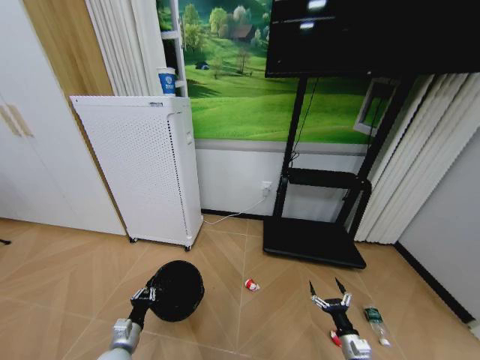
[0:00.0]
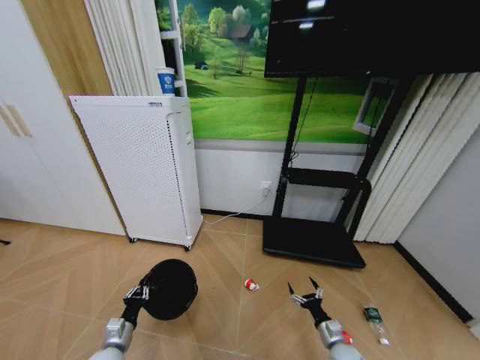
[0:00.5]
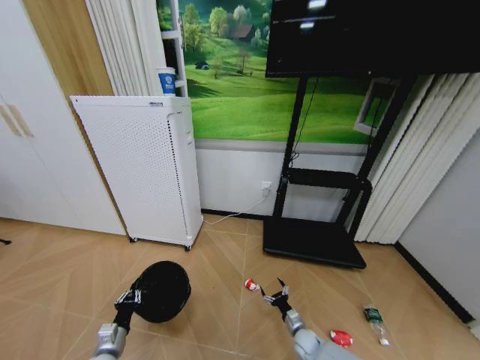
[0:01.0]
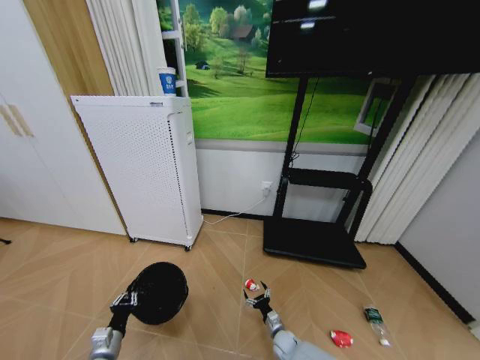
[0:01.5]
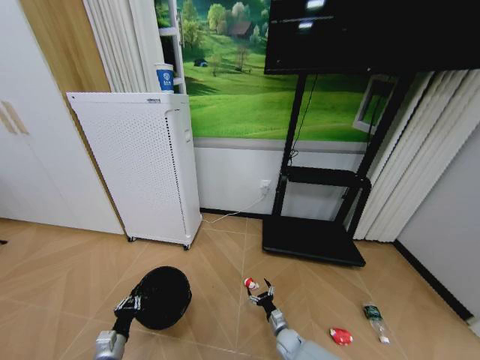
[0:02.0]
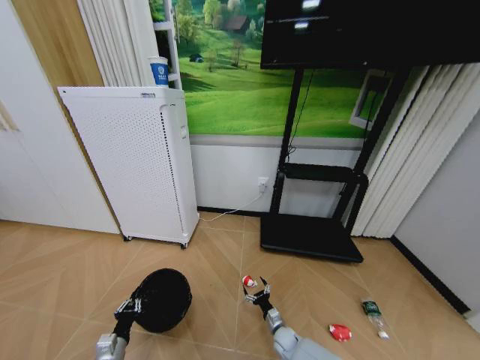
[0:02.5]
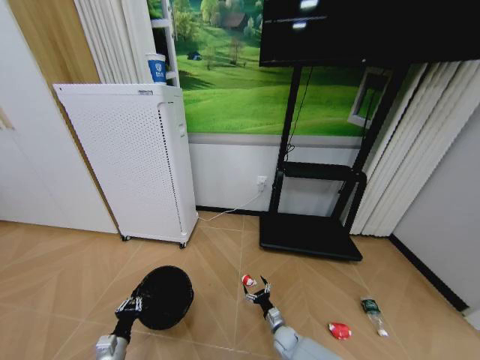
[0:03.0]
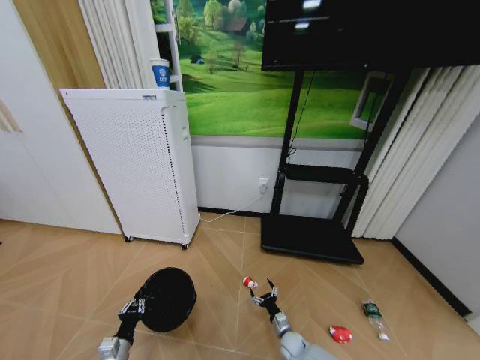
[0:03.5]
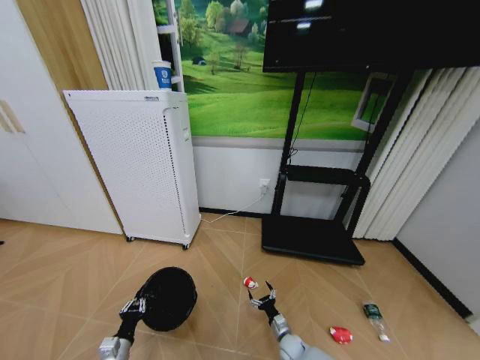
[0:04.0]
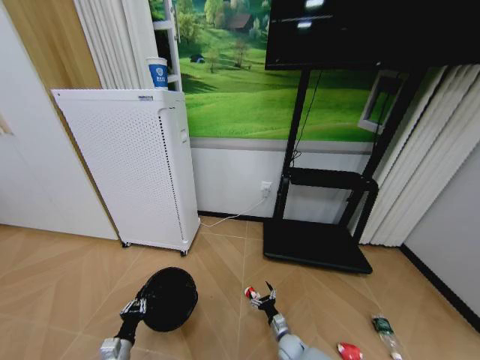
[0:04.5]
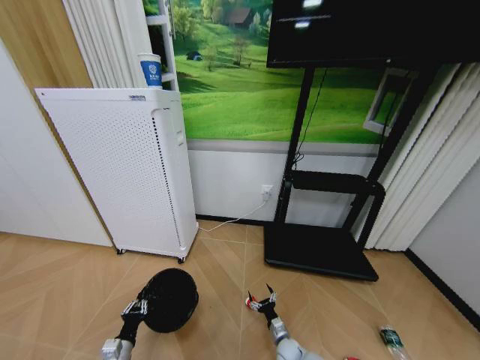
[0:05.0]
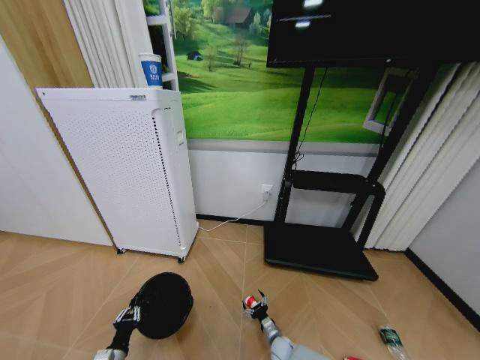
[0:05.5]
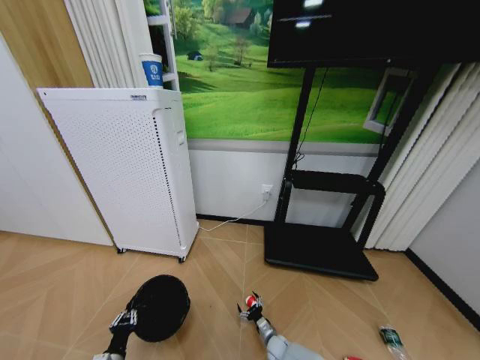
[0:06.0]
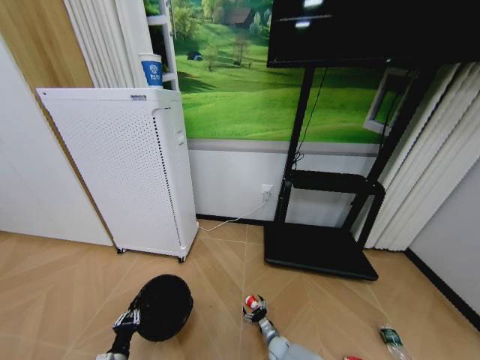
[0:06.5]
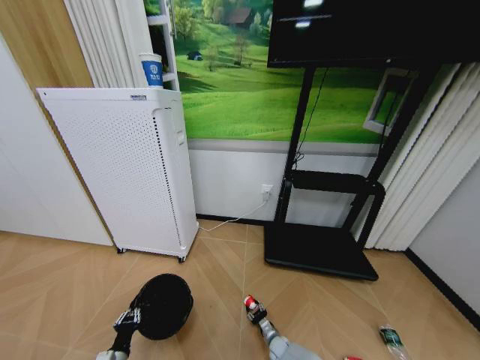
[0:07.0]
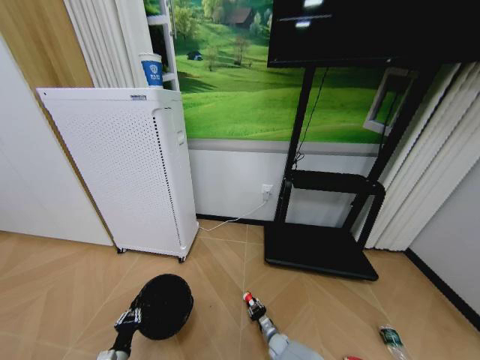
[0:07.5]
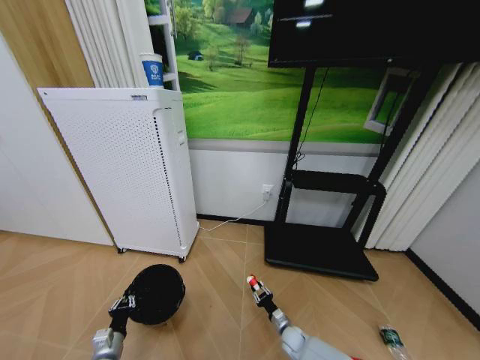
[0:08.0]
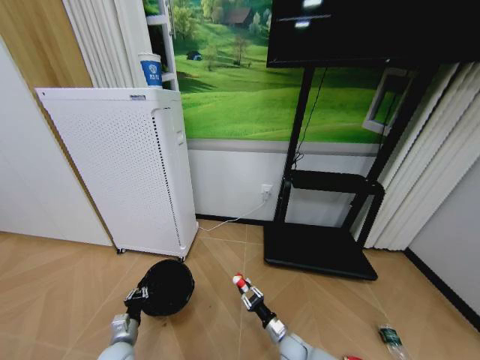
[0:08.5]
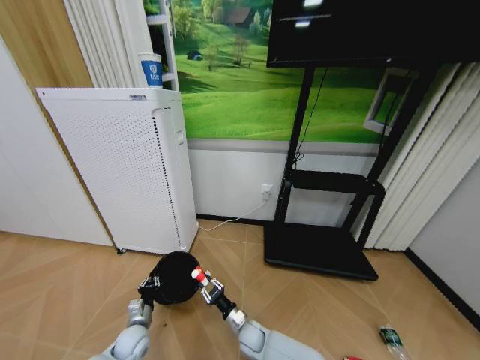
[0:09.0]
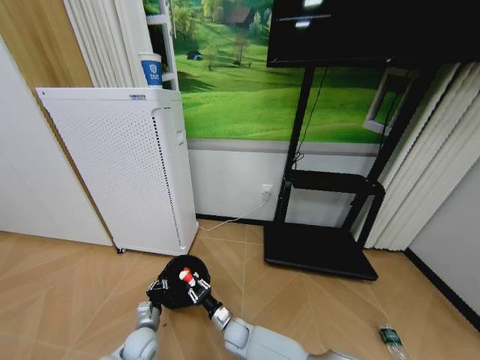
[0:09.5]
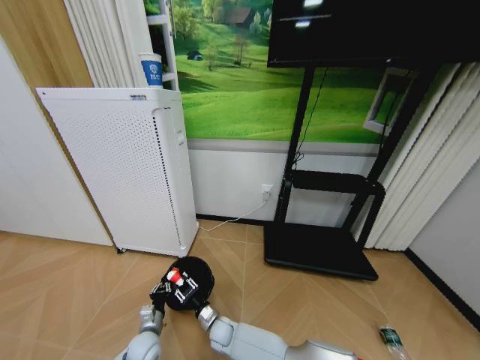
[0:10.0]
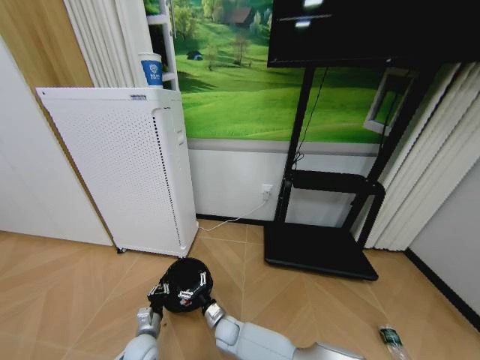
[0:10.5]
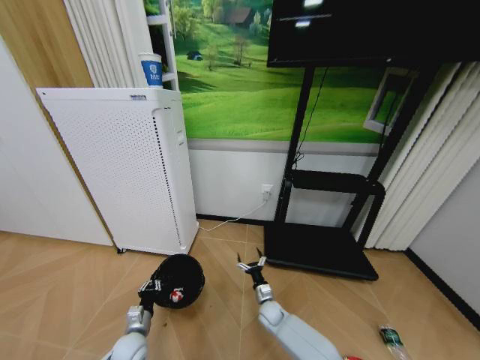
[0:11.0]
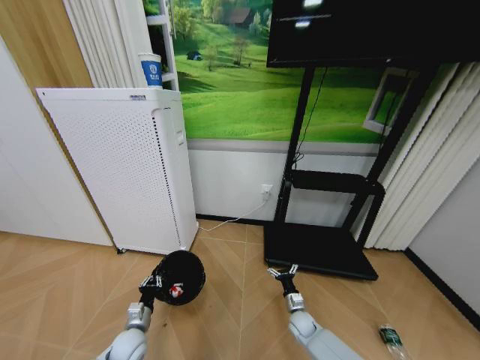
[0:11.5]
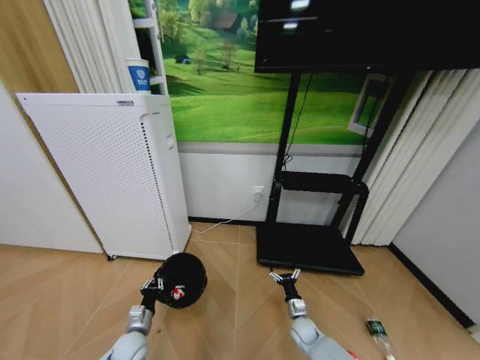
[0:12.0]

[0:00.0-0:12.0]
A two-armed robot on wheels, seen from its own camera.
Task of the whole recording: Pick up the trash bin and place the garbage on the floor into it.
0:00.0 to 0:02.0: The right gripper travels to the left, downward and forward by approximately 25 cm.
0:02.0 to 0:04.0: The grippers make only small movements.
0:04.0 to 0:06.0: The right gripper shifts by some 5 cm.
0:06.0 to 0:08.0: The right gripper goes some 10 cm to the right and upward, and closes its fingers. Meanwhile the left gripper shifts approximately 5 cm forward.
0:08.0 to 0:10.0: The left gripper goes some 10 cm to the right and forward. The right gripper goes roughly 30 cm to the left.
0:10.0 to 0:12.0: The right gripper goes roughly 30 cm to the right, and opens.

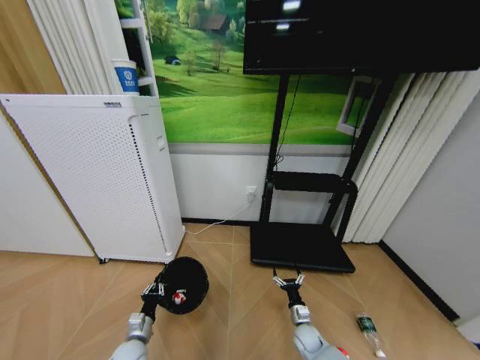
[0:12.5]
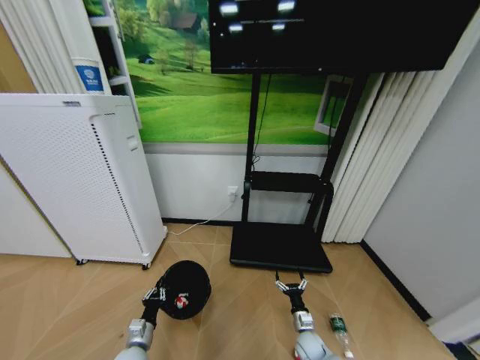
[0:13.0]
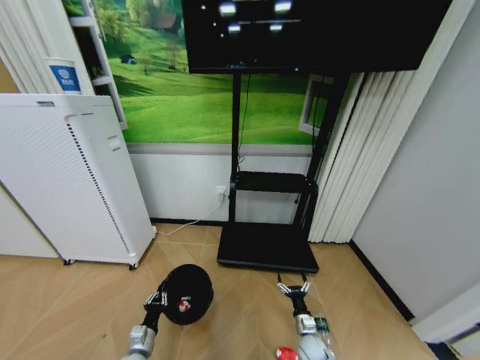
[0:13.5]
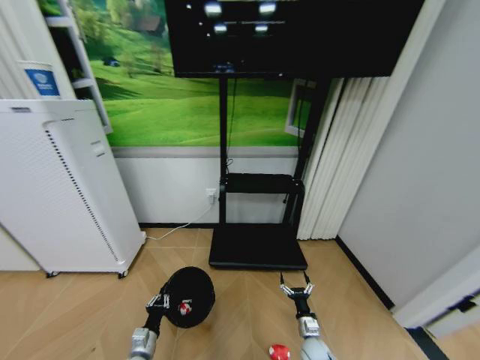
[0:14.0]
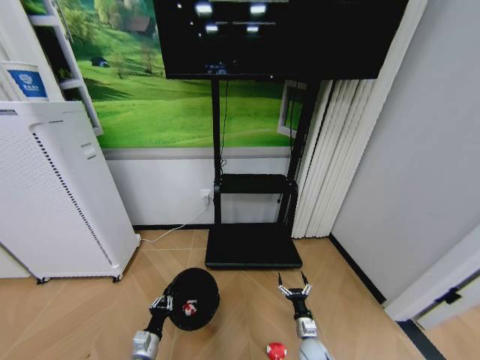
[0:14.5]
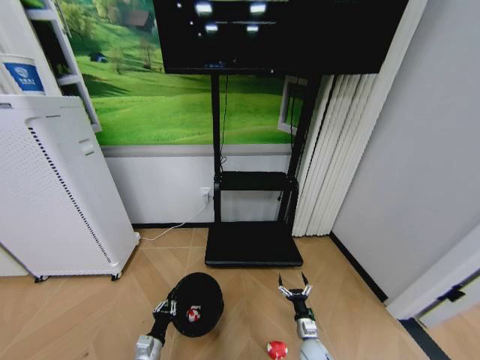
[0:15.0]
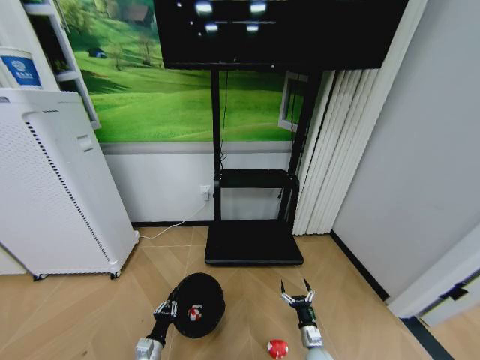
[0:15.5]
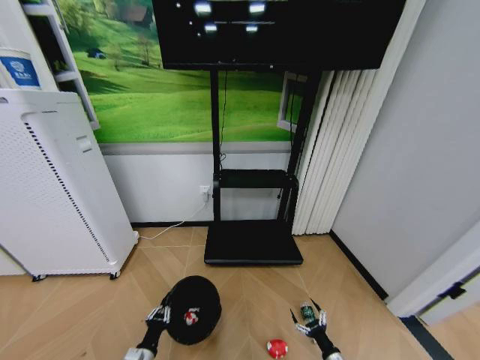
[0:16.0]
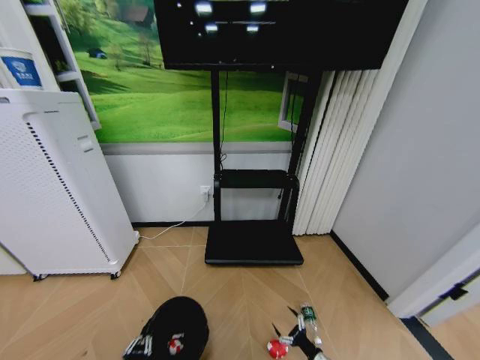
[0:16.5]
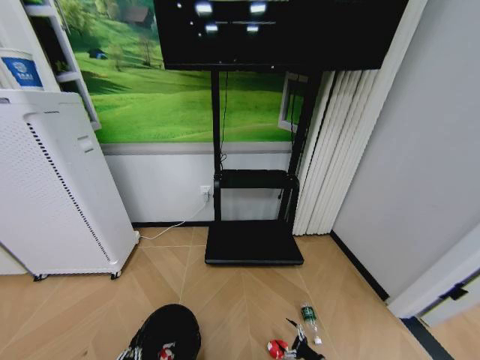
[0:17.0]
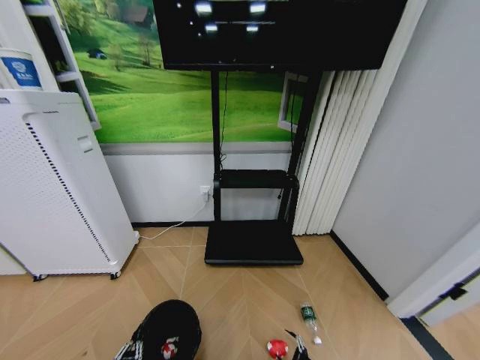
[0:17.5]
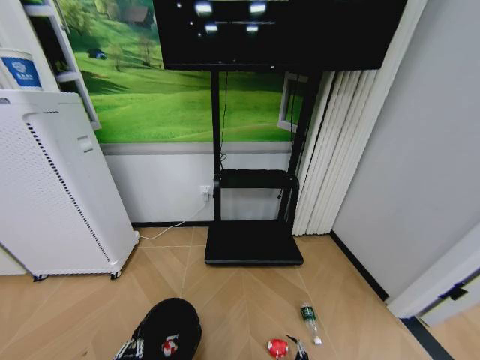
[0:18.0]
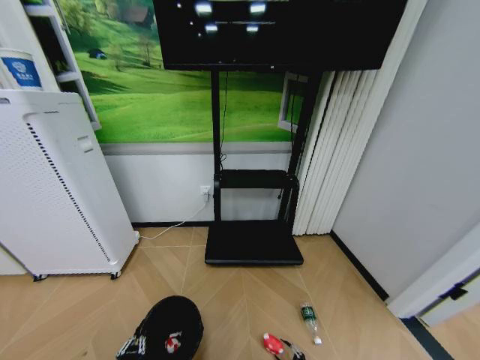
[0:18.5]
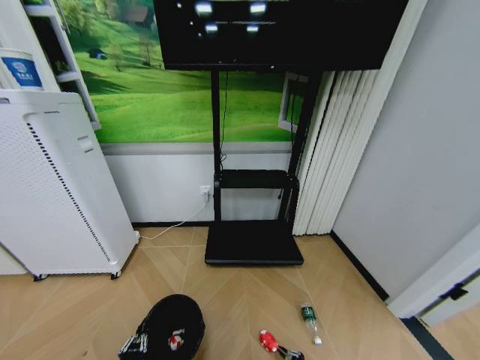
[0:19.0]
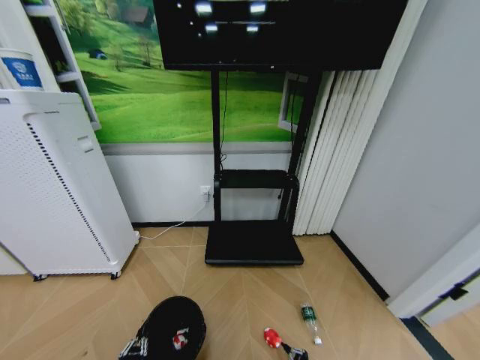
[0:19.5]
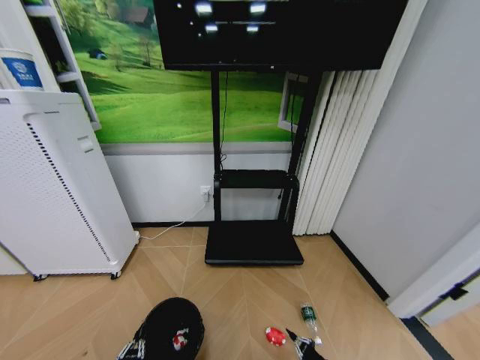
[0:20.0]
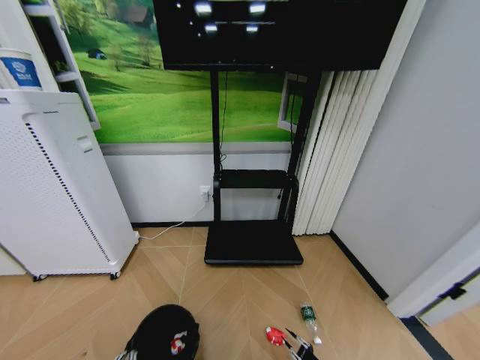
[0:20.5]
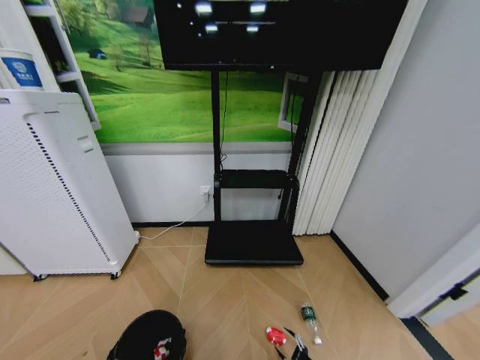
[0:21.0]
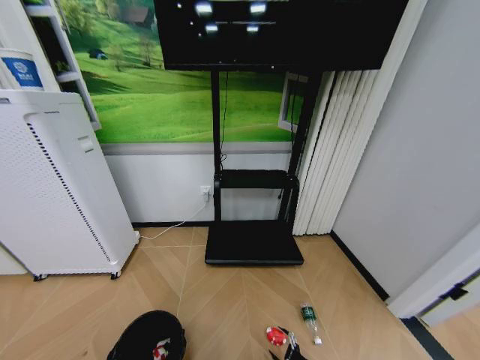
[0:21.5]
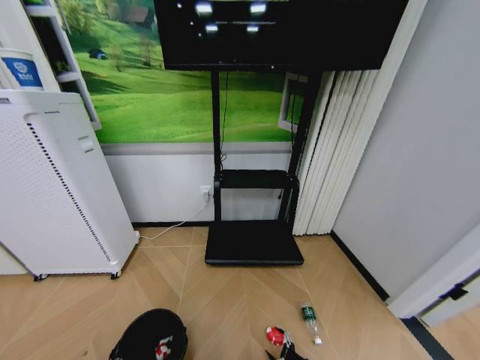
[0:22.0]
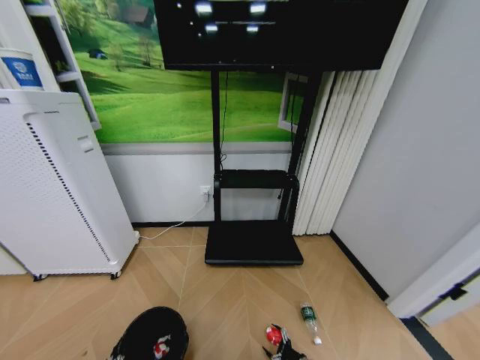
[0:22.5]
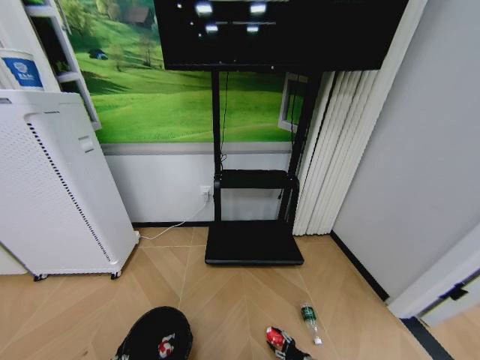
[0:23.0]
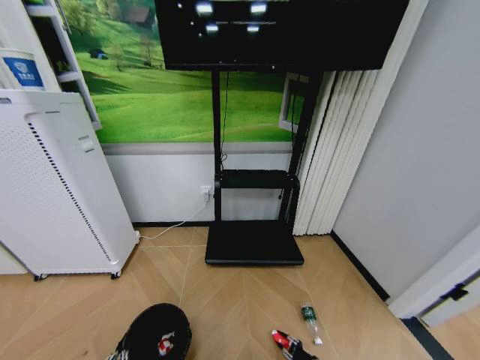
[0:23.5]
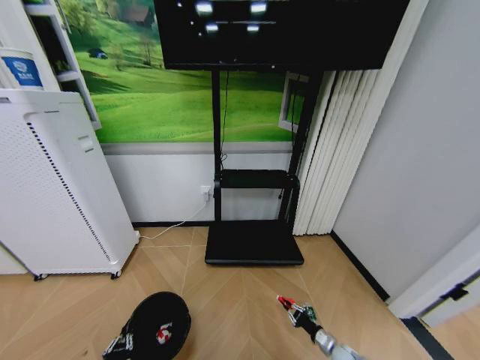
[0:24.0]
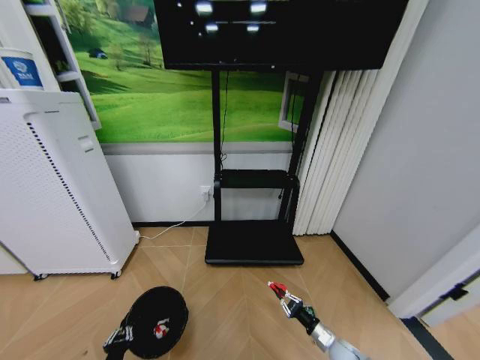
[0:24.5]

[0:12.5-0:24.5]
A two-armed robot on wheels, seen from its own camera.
Task of the whole recording: Pick up the trash bin and place the garbage on the floor into it.
0:12.5 to 0:14.5: The left gripper changes place by some 5 cm.
0:14.5 to 0:16.5: The left gripper travels backward by roughly 10 cm; the right gripper moves to the right and backward, about 10 cm.
0:16.5 to 0:18.5: The right gripper moves downward, approximately 5 cm.
0:18.5 to 0:20.5: The right gripper closes.
0:20.5 to 0:22.5: The right gripper is displaced forward by some 5 cm, and opens its fingers.
0:22.5 to 0:24.5: The left gripper is displaced forward by approximately 10 cm. The right gripper is displaced upward by roughly 15 cm, and closes.

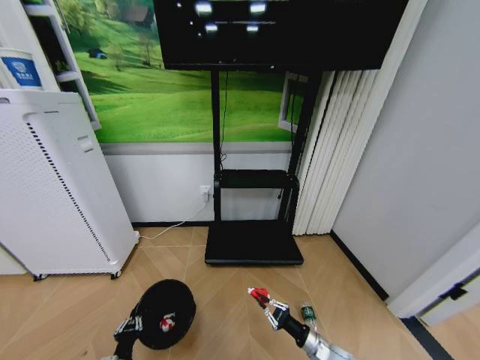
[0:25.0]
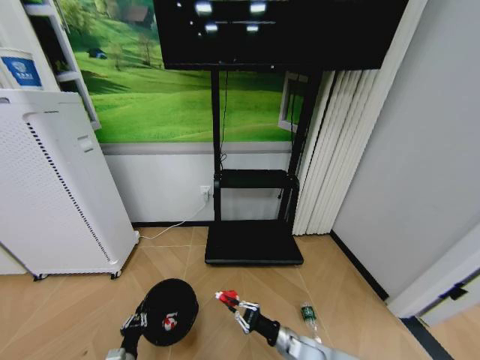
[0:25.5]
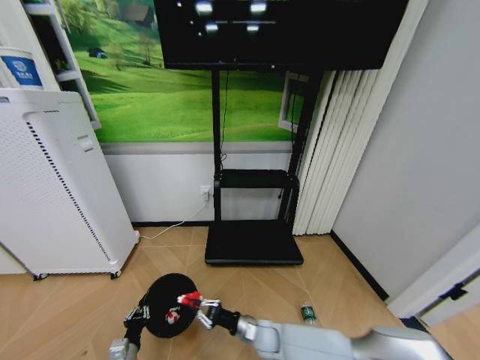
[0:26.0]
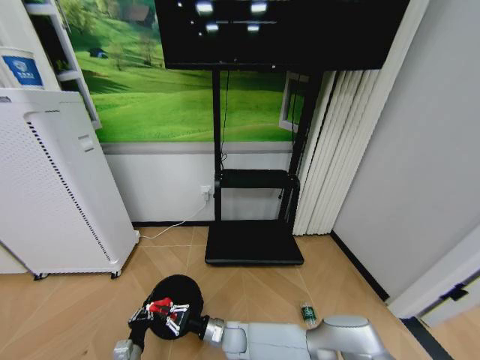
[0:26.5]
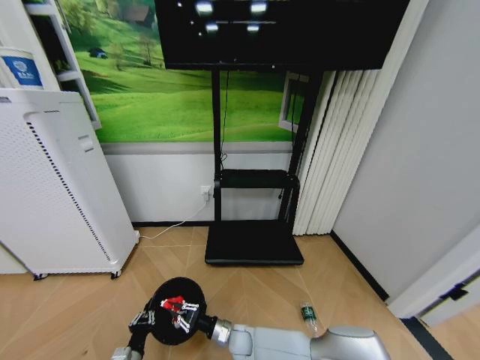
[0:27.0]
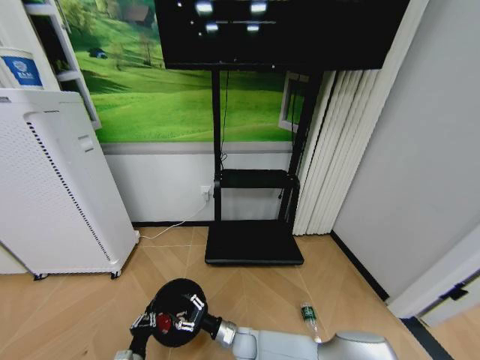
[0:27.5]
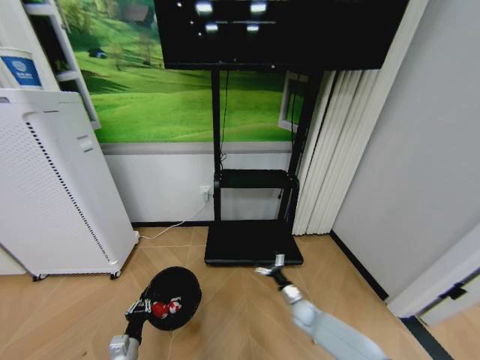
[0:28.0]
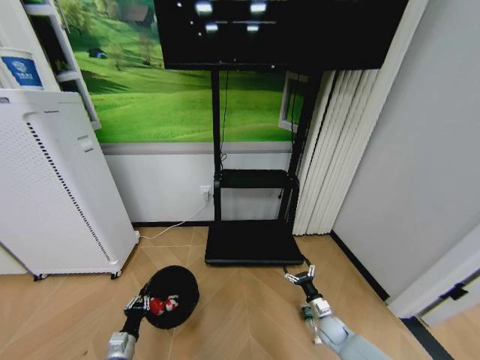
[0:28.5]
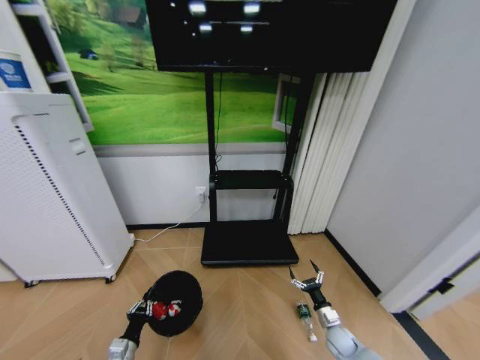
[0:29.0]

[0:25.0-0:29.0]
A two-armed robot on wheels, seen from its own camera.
Task of the whole recording: Pick up the trash bin and place the garbage on the floor into it.
0:25.0 to 0:27.0: The right gripper shifts roughly 30 cm to the left.
0:27.0 to 0:29.0: The right gripper goes about 35 cm to the right, and opens up.
